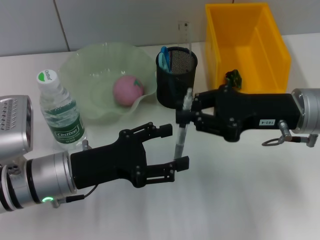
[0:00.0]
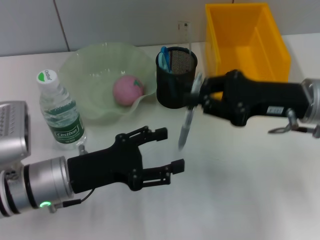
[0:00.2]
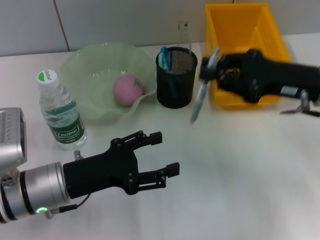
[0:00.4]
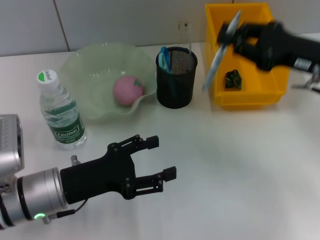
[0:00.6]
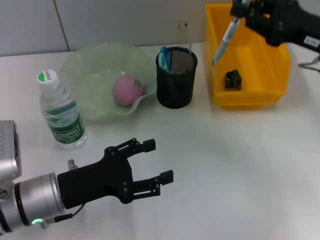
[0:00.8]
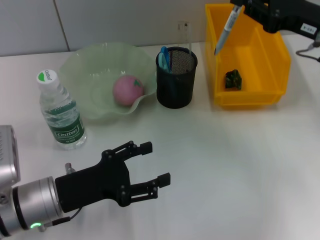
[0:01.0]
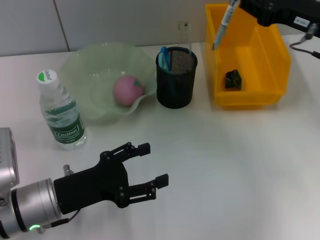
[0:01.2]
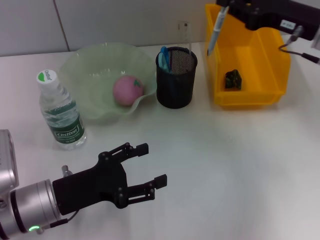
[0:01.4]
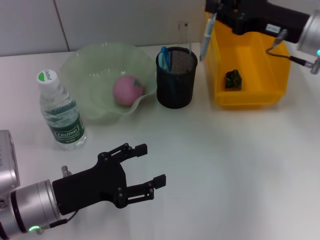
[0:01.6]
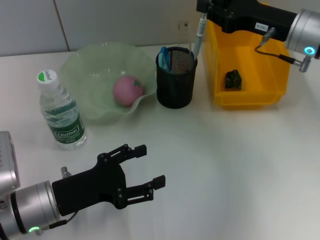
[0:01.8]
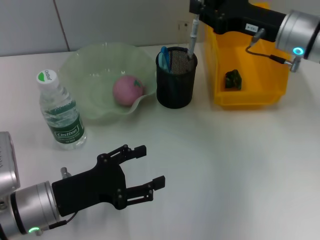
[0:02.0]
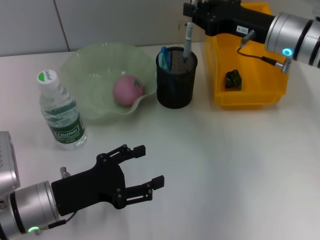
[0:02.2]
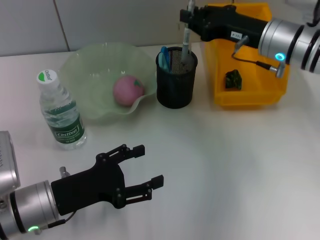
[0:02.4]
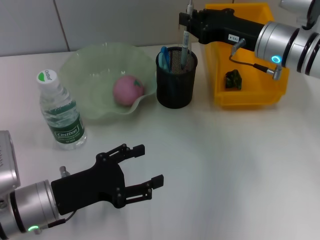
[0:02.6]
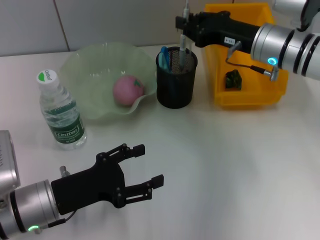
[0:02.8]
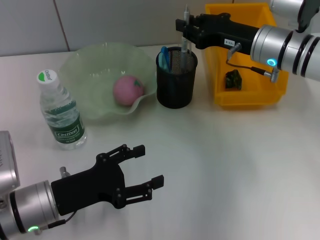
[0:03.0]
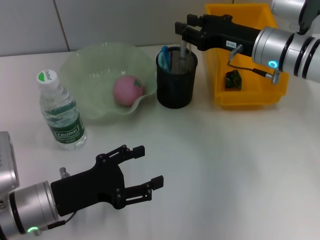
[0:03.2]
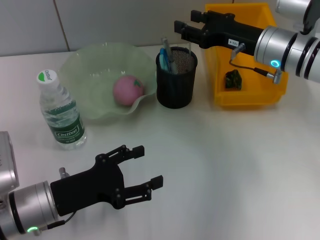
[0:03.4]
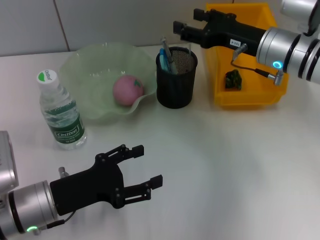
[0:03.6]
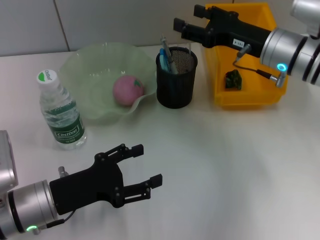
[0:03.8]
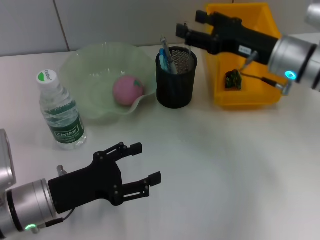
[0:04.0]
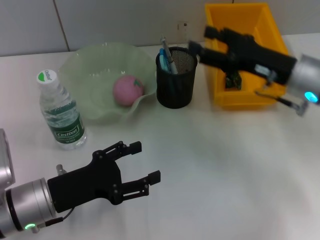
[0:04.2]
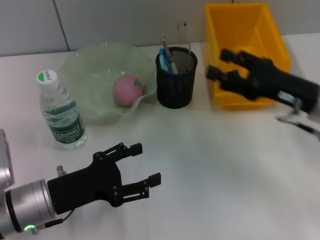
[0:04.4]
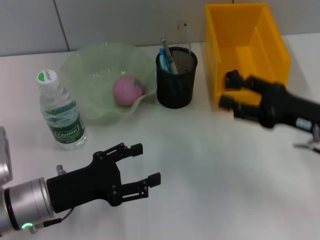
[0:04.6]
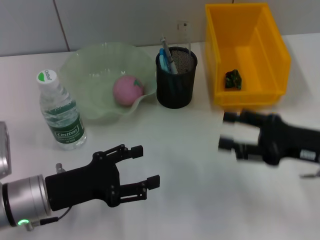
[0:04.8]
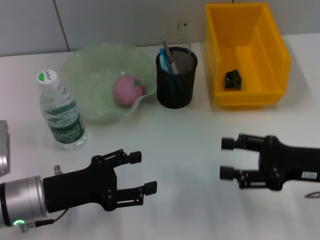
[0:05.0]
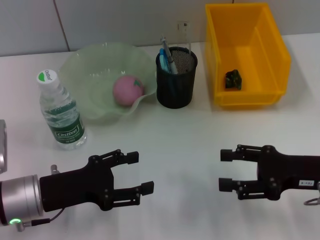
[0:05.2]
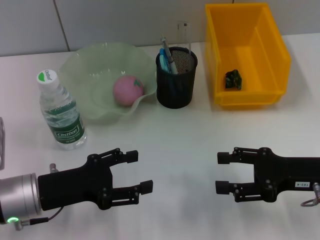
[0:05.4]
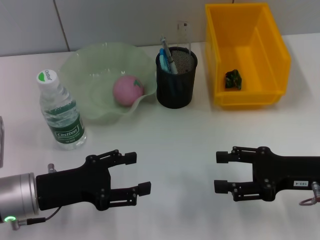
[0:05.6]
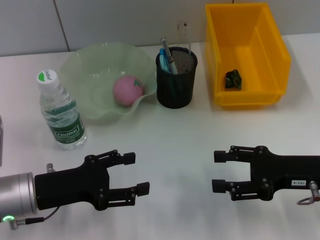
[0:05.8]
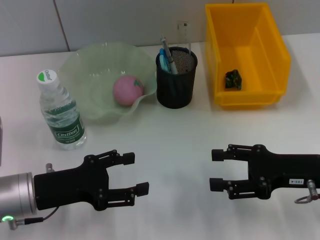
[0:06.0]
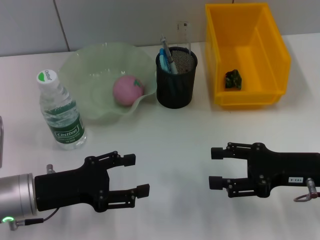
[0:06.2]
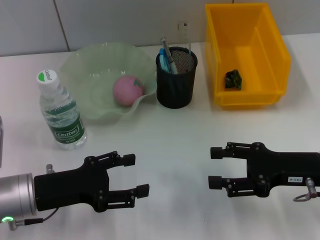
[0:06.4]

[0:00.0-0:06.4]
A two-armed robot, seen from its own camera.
Step, 0.0 to 3.2 s: Place the gray spring-action pen into the pen holder with the right hand.
0.0 to 1.6 s: The right gripper moves forward, about 10 cm.
1.6 to 3.2 s: The right gripper moves about 5 cm.
3.2 to 4.8 s: The right gripper heads backward and to the right, covering approximately 15 cm, and opens its fingers.
4.8 to 6.4 s: The grippers make only small movements.

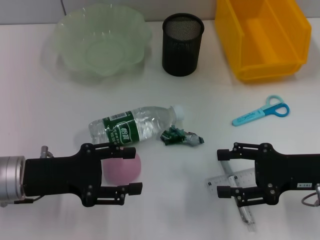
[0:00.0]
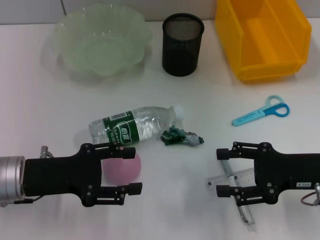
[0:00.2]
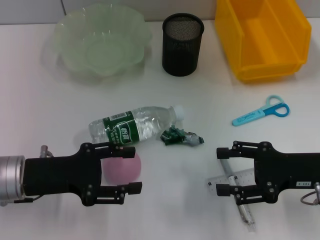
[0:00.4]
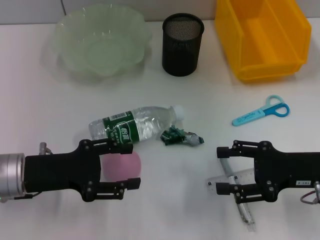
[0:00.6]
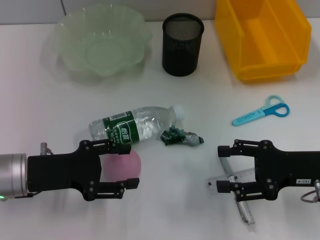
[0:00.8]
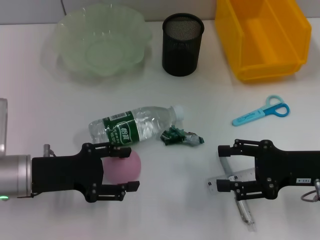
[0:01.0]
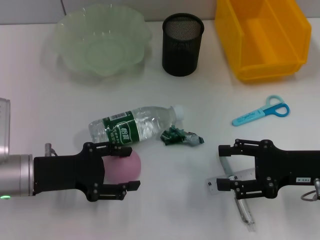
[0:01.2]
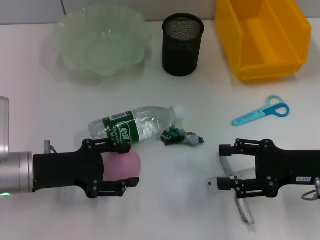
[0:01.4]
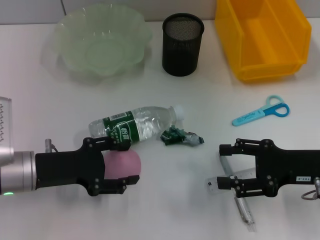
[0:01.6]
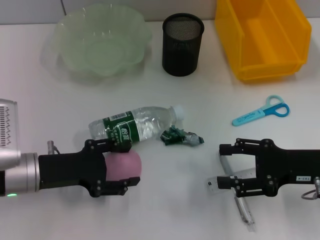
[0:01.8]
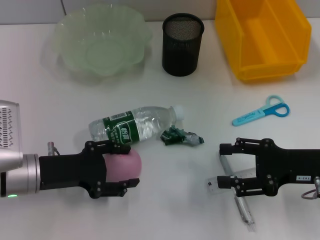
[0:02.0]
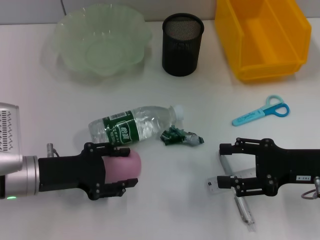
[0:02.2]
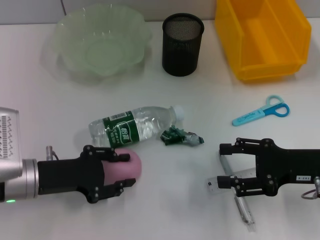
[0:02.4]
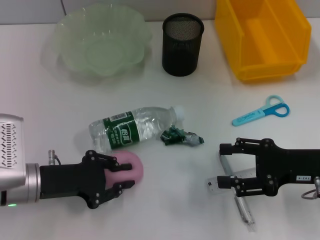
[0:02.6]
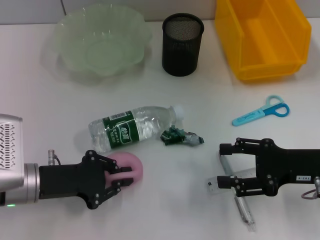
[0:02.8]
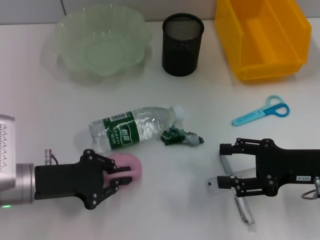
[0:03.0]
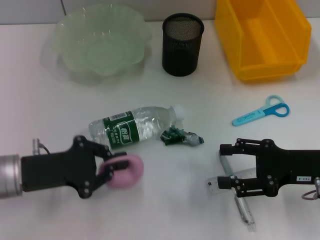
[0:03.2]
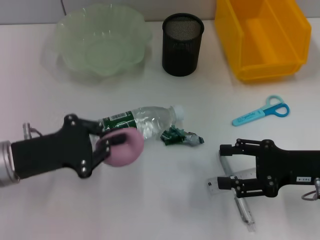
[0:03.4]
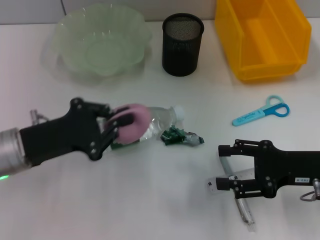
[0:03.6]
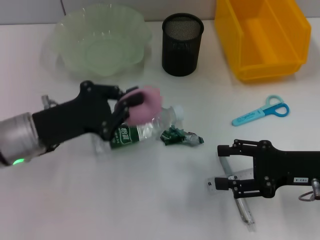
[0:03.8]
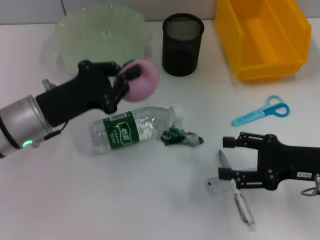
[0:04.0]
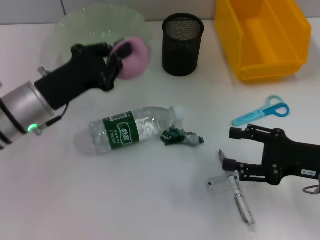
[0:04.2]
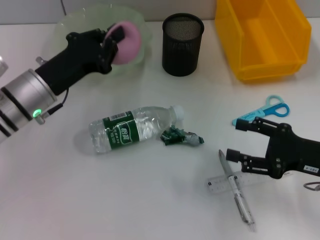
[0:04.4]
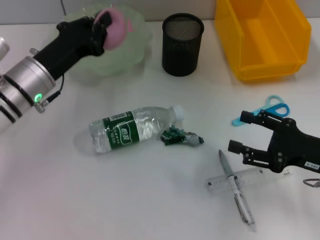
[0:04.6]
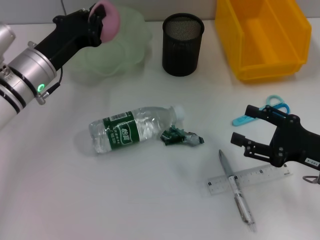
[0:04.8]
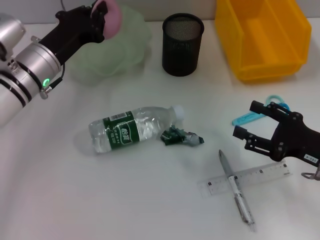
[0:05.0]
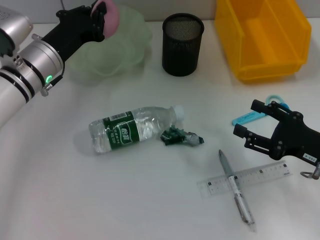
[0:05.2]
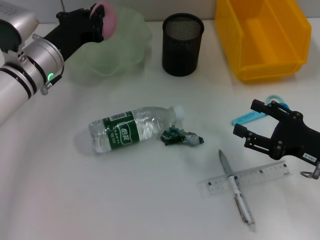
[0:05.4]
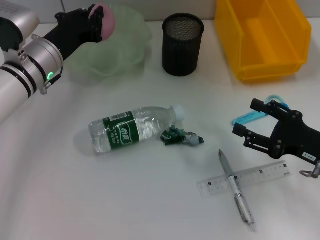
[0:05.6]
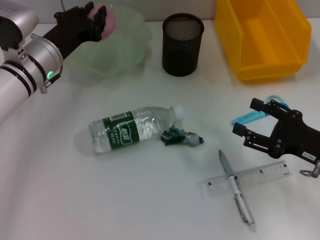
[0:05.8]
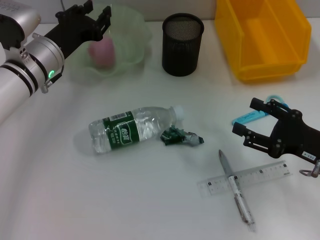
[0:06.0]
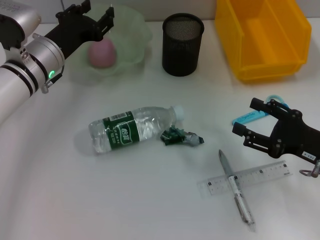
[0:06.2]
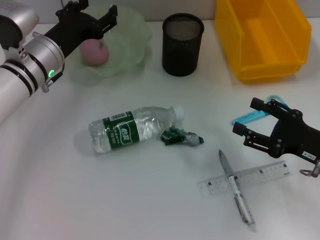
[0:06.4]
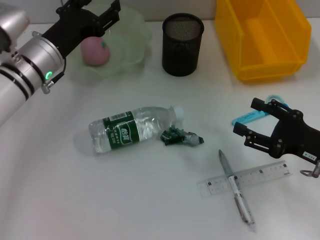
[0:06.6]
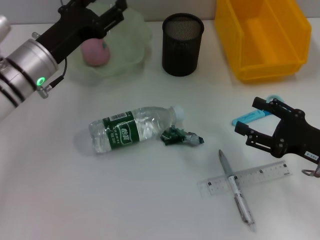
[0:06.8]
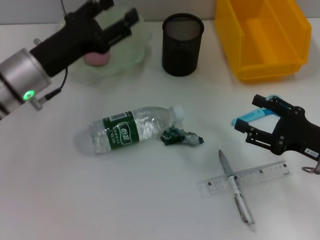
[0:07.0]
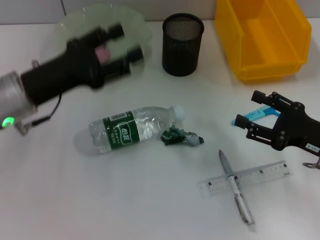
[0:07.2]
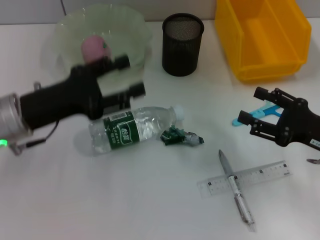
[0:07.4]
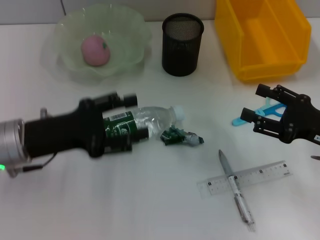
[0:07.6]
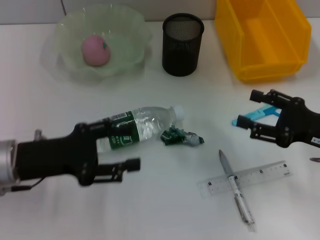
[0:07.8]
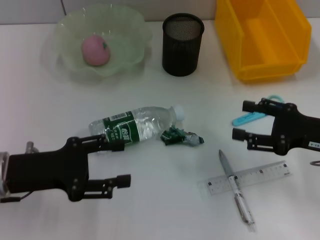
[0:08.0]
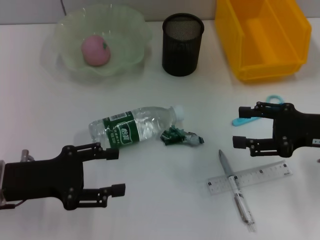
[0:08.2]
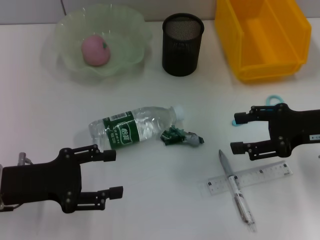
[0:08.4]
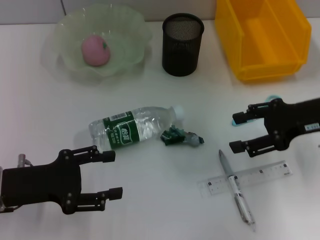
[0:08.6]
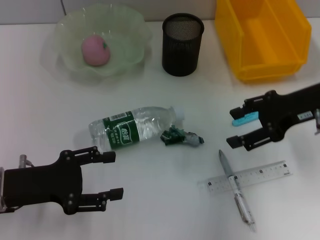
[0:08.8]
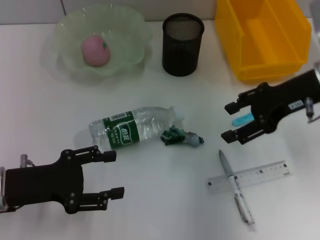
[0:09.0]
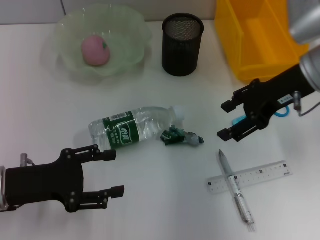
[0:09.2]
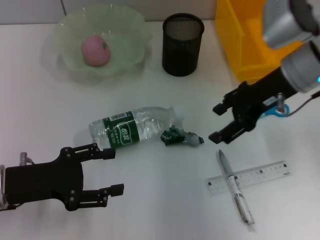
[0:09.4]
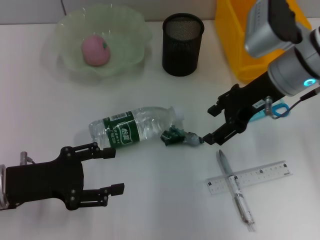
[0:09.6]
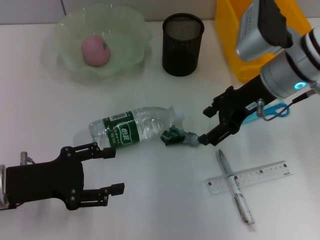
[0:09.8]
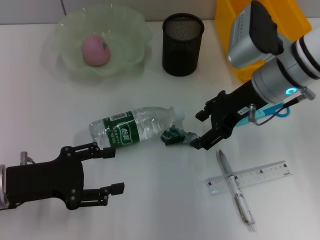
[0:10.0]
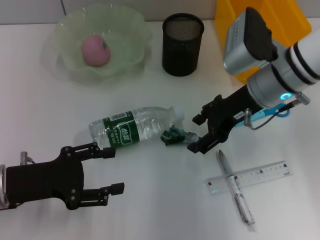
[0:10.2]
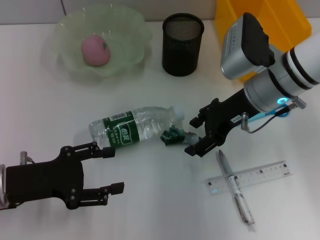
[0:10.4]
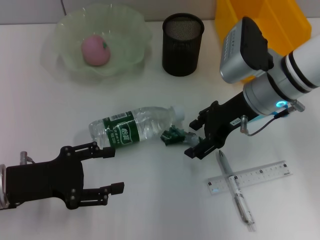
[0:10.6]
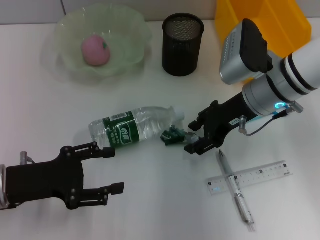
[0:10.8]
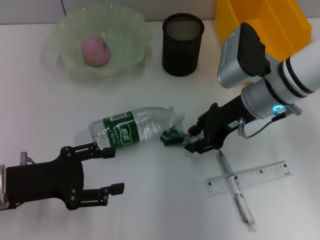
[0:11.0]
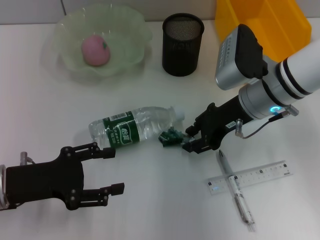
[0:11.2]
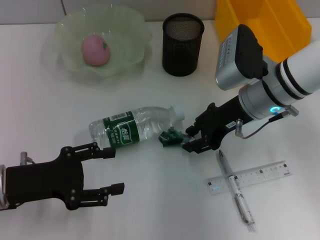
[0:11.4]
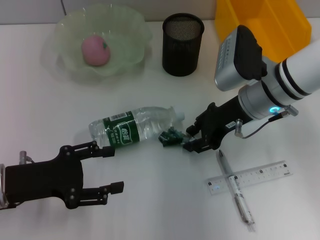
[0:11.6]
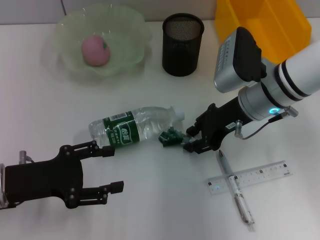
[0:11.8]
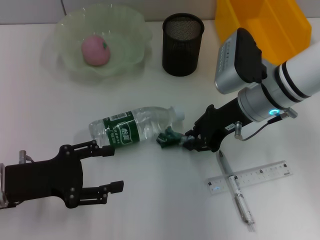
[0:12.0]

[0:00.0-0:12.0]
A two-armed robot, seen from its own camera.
Step, 0.0 to 2.8 s: Grab the peach with the left hand.
Step, 3.2 to 6.4 s: Place the peach into the fruit bowl with the left hand.
Step, 6.6 to 11.8 s: Grab the plastic with the right hand.
0.0 to 1.6 s: The grippers move only a little.
1.6 to 3.0 s: The left gripper closes up.
3.0 to 4.4 s: The left gripper moves forward, roughly 10 cm.
4.4 to 6.0 s: The left gripper heads forward, covering some 5 cm.
6.0 to 7.6 s: The left gripper shifts about 10 cm backward, and opens up.
7.6 to 9.0 s: The right gripper moves upward, forward and to the left, about 15 cm. Meanwhile the left gripper shifts by about 5 cm.
9.0 to 10.4 s: The right gripper moves to the left, roughly 5 cm.
10.4 to 12.0 s: The right gripper closes its fingers.

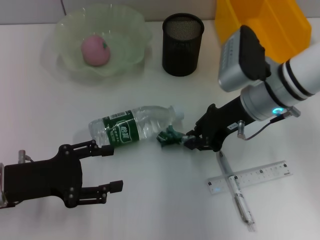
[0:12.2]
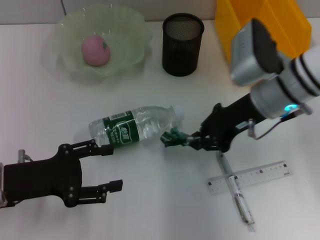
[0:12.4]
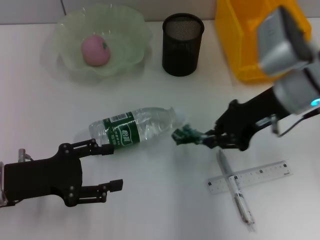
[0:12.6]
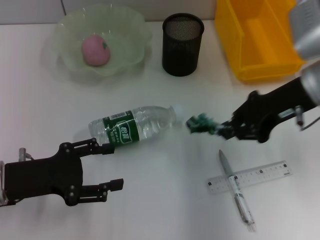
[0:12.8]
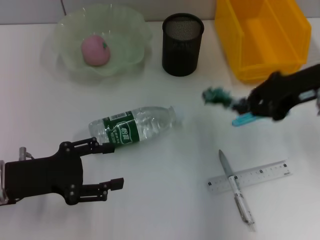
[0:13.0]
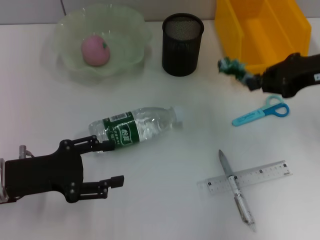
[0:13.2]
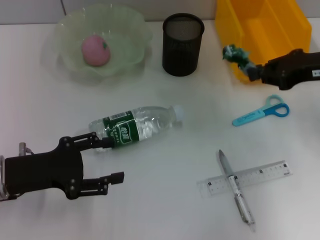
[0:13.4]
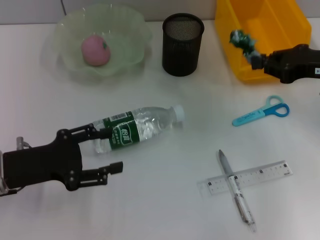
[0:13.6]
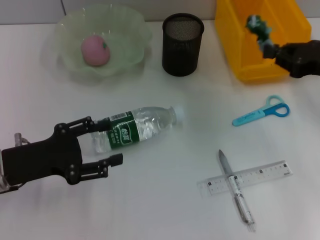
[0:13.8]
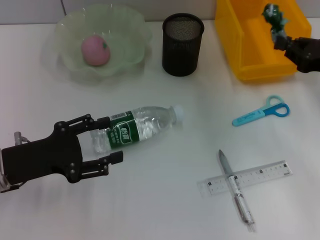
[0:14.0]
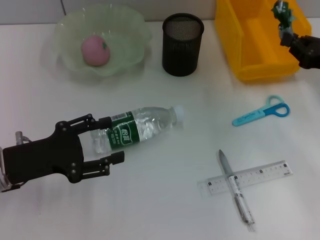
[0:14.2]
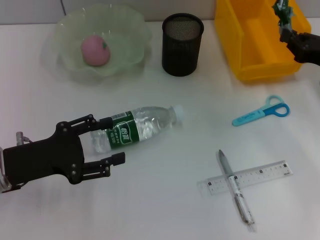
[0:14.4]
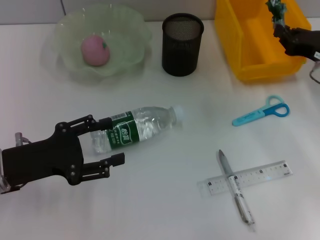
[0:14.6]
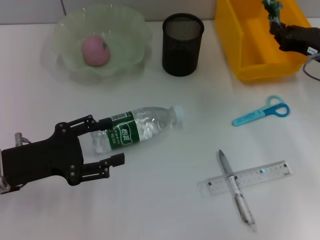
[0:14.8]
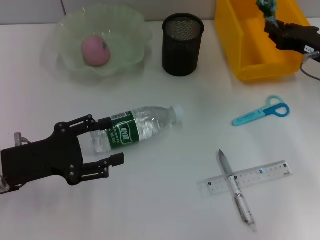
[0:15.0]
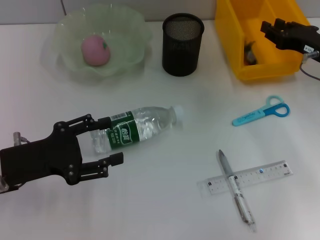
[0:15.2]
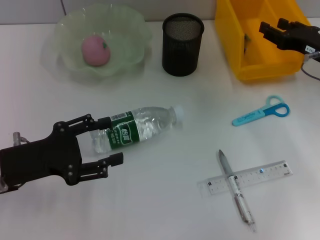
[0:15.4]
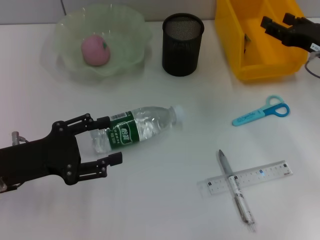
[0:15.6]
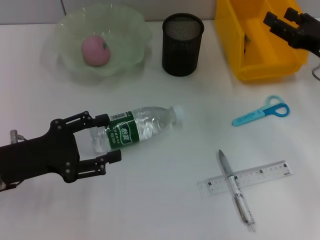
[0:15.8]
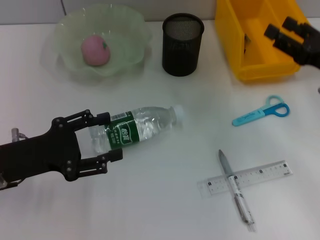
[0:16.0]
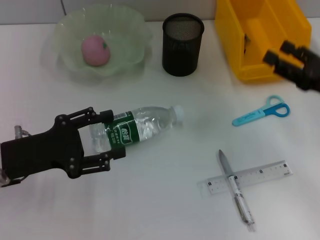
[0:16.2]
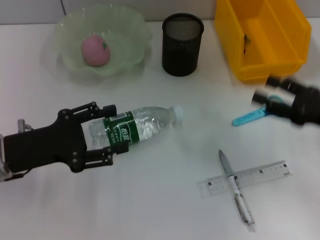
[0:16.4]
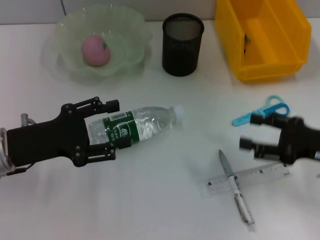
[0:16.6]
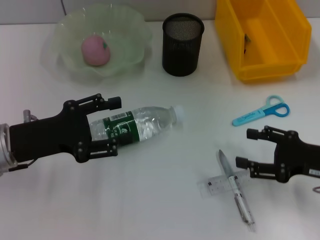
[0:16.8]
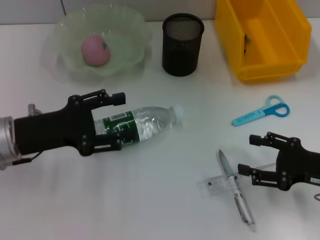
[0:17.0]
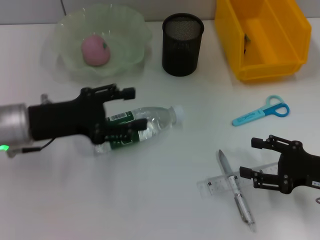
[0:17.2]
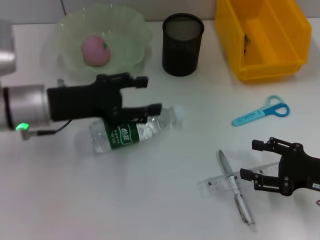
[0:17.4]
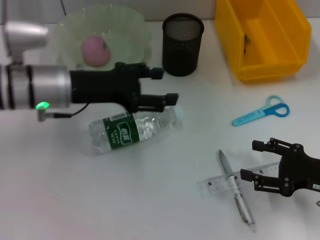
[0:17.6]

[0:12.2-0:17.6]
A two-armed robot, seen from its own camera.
Step, 12.2 to 15.2 s: Place the plastic into the trash can with the right hand.
12.2 to 13.6 s: The right gripper heads to the right, covering roughly 15 cm.
13.6 to 15.0 s: The right gripper goes roughly 5 cm downward.
15.0 to 16.2 s: The right gripper shifts approximately 10 cm backward, and opens.
16.2 to 17.6 s: The right gripper travels backward and downward by about 10 cm, while the left gripper goes roughly 15 cm forward, to the right and upward.
